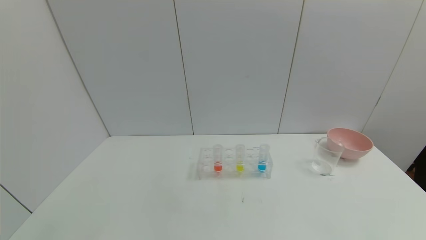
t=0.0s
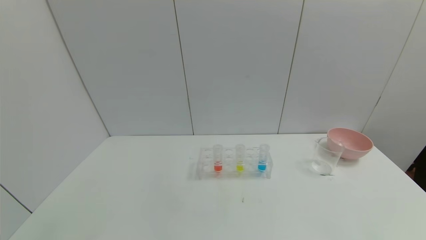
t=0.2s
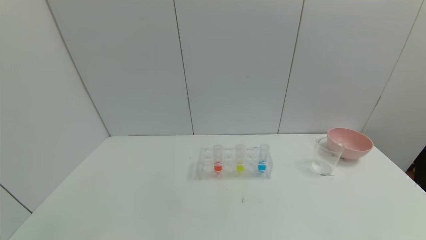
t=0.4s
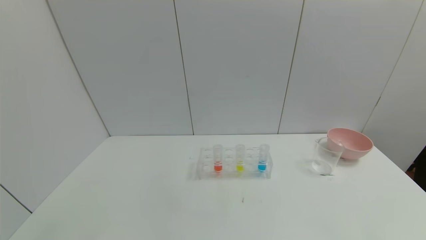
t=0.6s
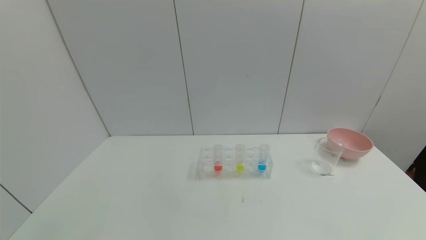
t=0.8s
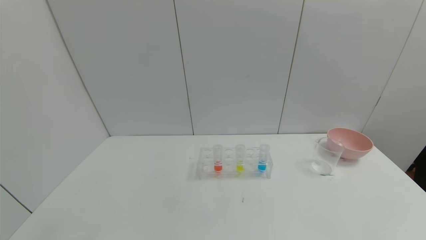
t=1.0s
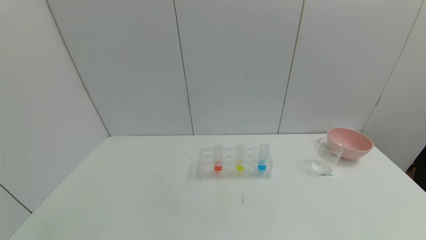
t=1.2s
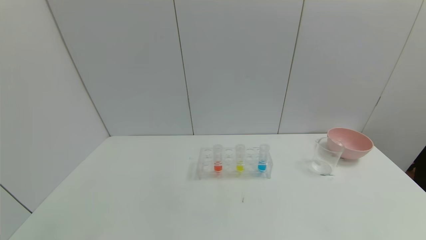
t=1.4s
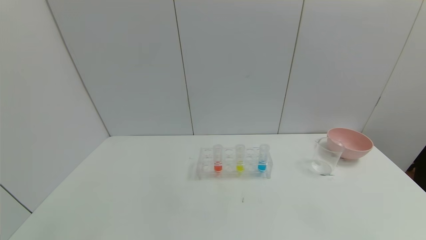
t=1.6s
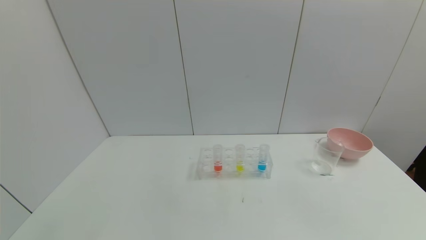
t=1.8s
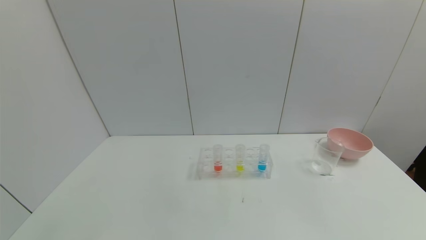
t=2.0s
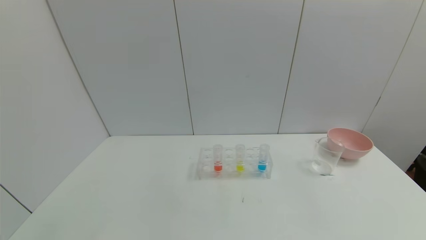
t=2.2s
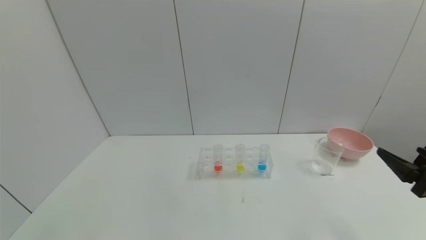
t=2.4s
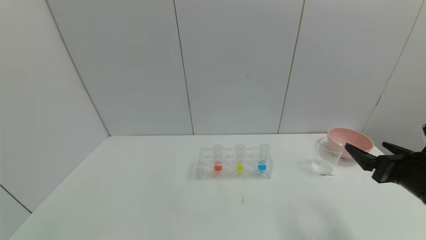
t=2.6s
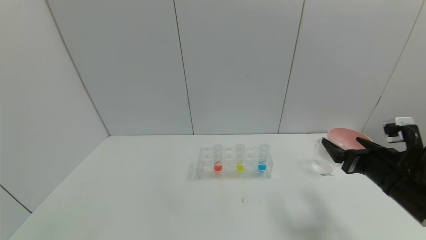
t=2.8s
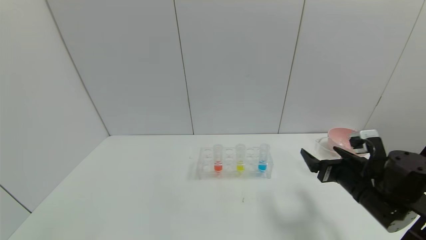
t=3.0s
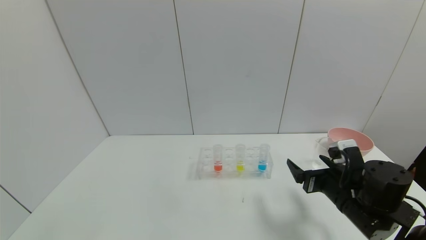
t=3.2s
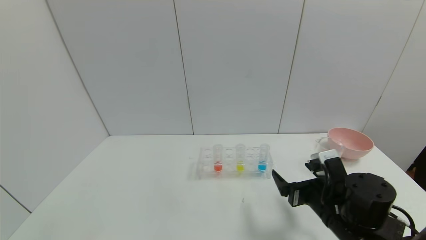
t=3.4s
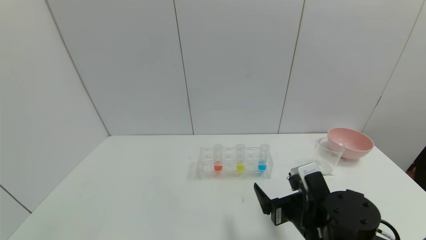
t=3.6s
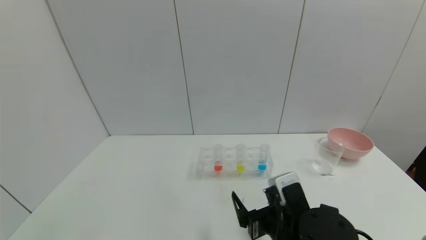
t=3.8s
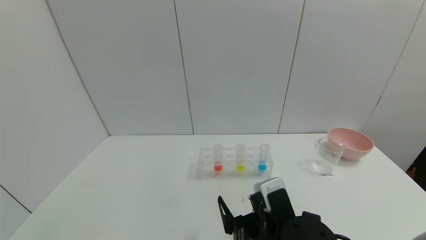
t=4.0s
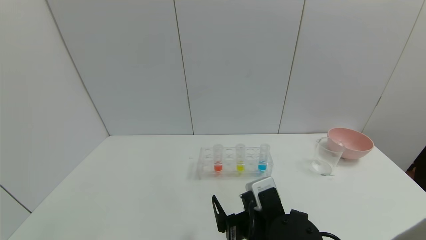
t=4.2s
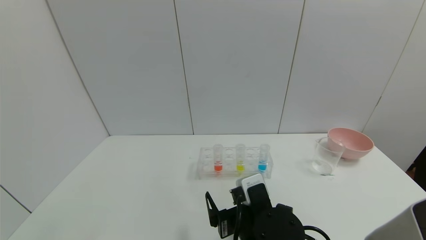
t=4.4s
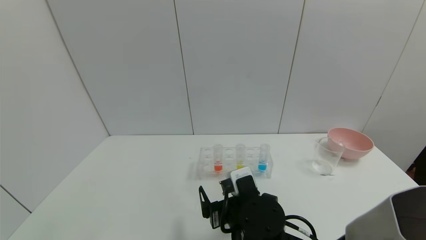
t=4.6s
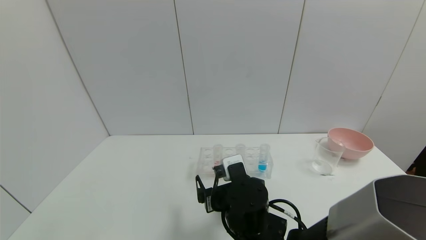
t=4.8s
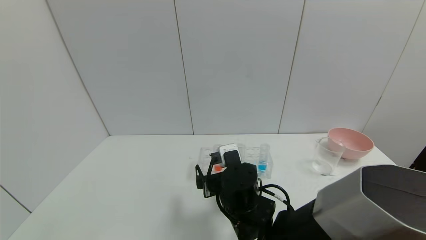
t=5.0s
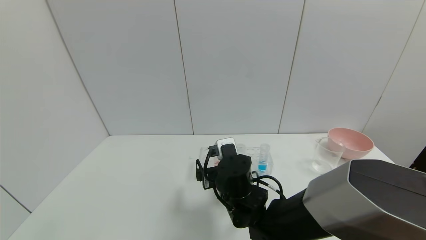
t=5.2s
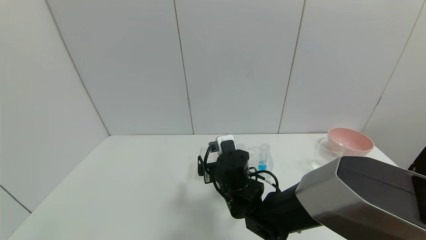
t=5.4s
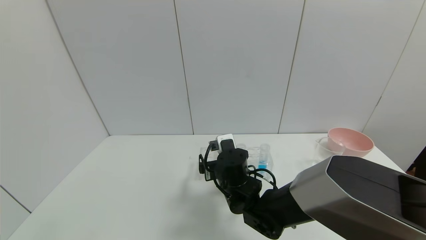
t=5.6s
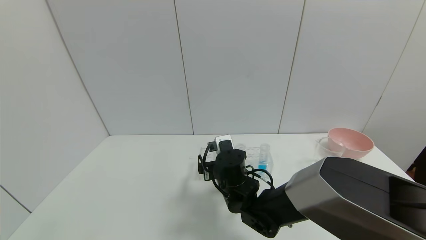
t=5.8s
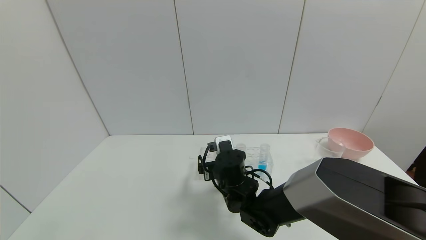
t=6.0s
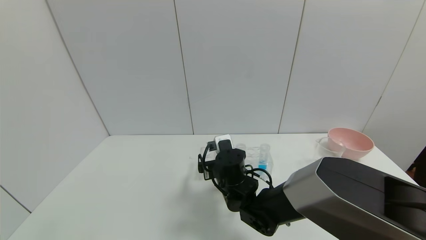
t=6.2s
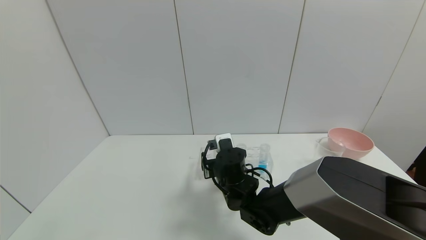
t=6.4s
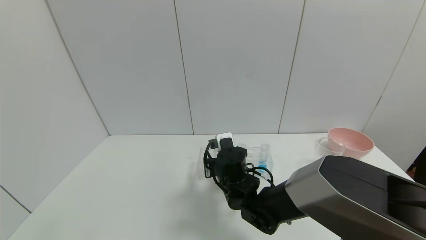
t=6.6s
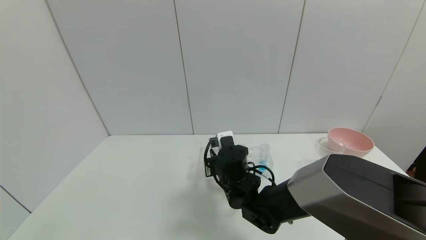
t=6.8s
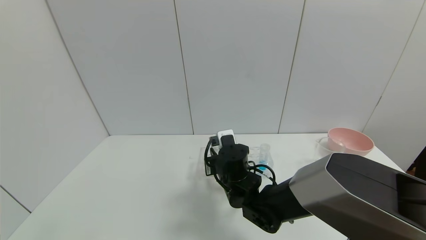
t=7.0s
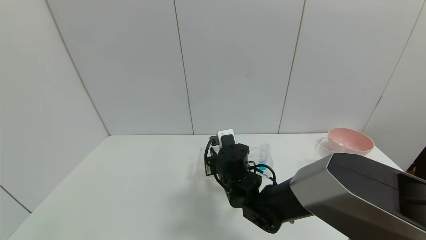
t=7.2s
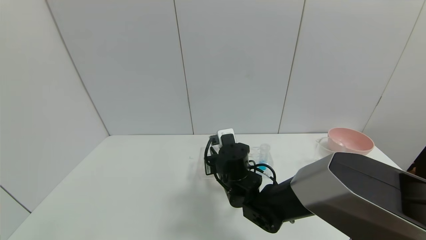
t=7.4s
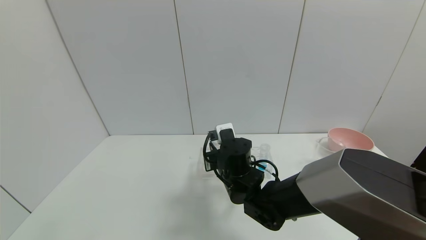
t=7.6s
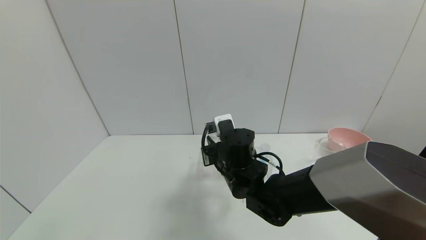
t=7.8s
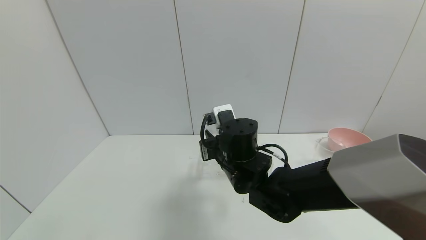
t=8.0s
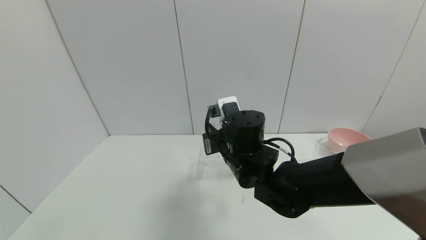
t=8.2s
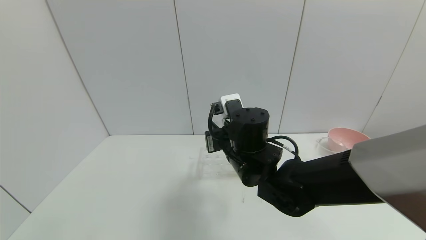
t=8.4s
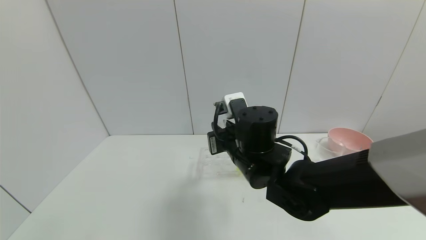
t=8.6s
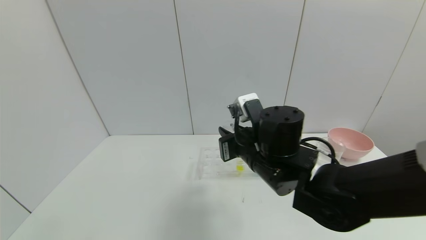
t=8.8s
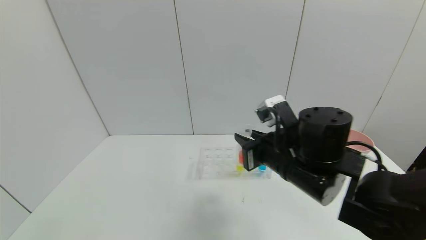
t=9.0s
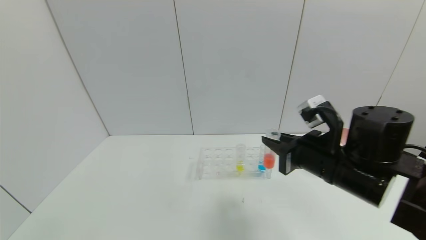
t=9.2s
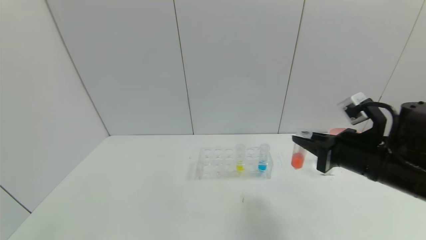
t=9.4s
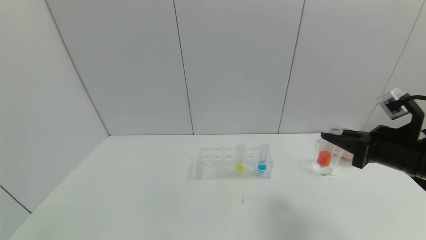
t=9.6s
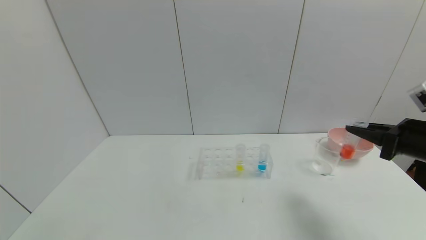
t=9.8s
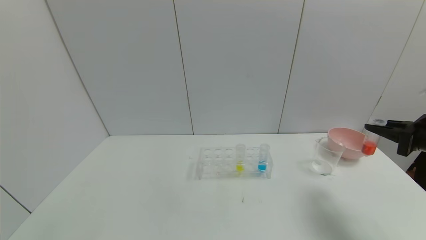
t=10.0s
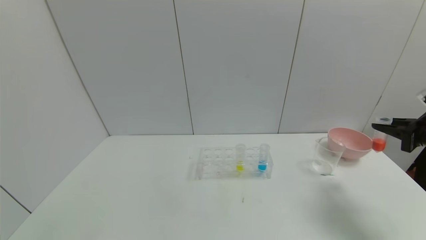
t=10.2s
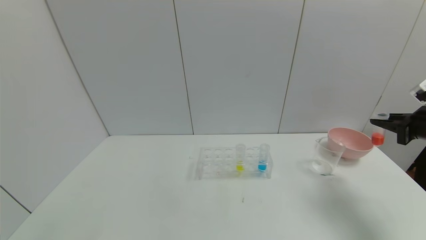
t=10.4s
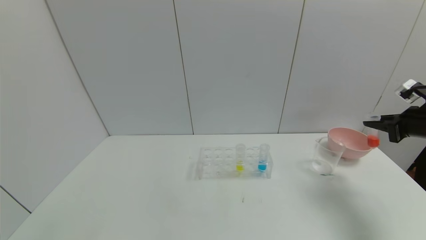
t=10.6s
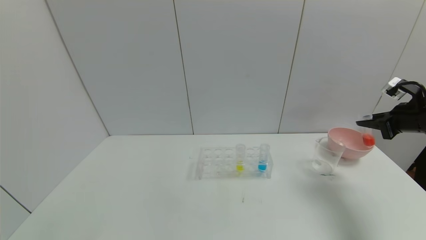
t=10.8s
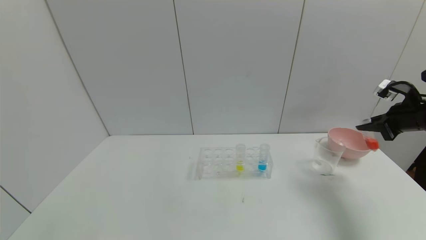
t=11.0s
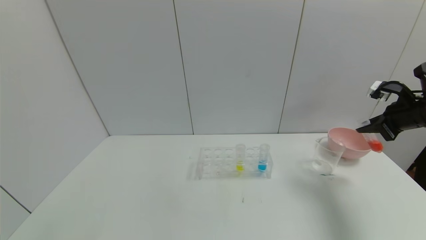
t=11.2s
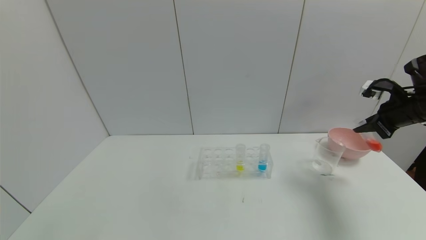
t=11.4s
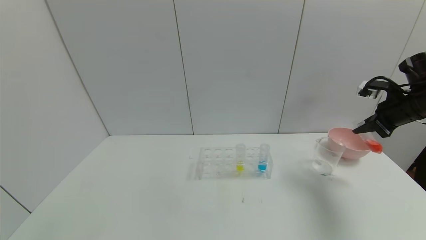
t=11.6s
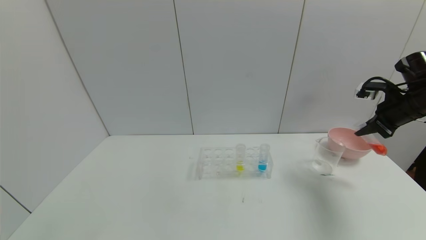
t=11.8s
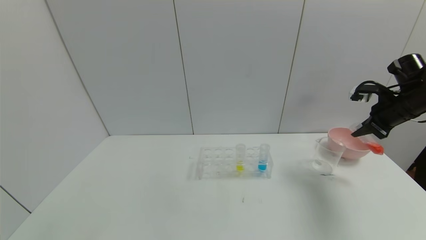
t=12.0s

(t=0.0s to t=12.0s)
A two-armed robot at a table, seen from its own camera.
Task of the whole recording: pick up the test tube with red pigment and the test tube with blue pigment by grippers and pour them into the container.
Step, t=0.0s - t=6.8s: Grasp the red reagent with the right gripper.
t=1.6s - t=3.0s: The right gripper heads forward, covering roughly 25 cm.
t=3.0s - t=4.4s: The right gripper travels to the left by roughly 20 cm.
t=4.4s - t=6.0s: The right gripper is displaced forward by some 15 cm.
t=6.0s - t=7.6s: The right gripper closes up.
t=7.6s - t=9.0s: The right gripper travels to the right, upward and backward by approximately 15 cm.
t=9.0s - t=10.4s: The right gripper goes roughly 35 cm to the right.
t=10.4s - t=12.0s: The right gripper heads forward and to the left, covering some 10 cm.

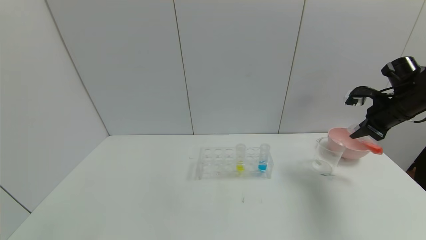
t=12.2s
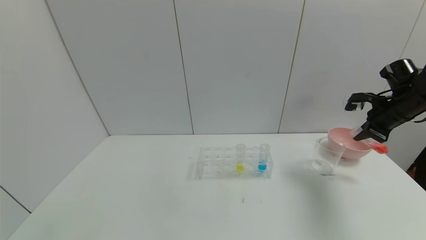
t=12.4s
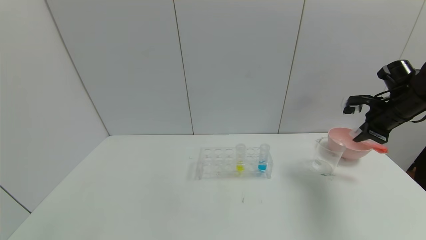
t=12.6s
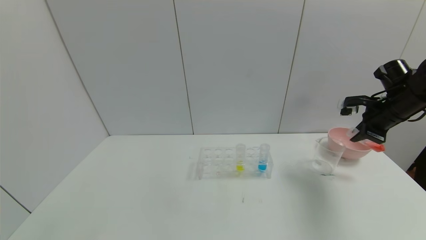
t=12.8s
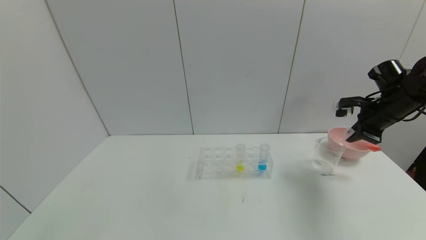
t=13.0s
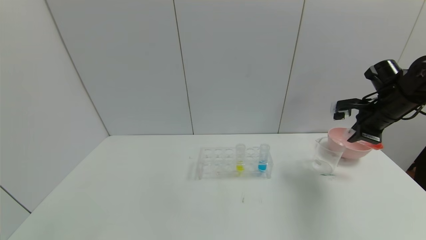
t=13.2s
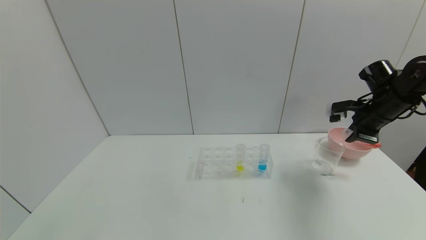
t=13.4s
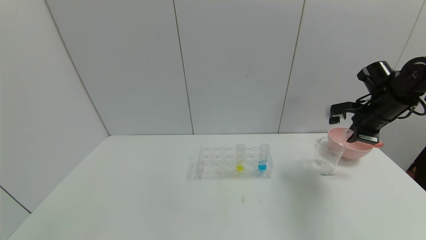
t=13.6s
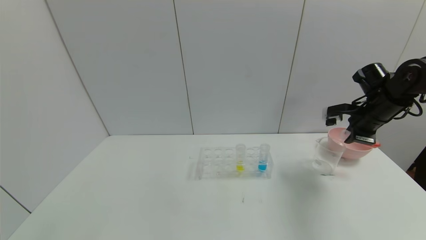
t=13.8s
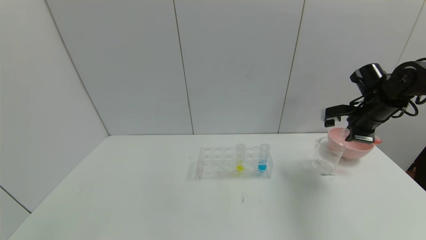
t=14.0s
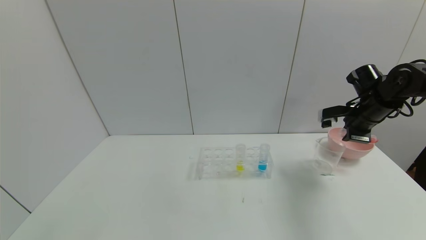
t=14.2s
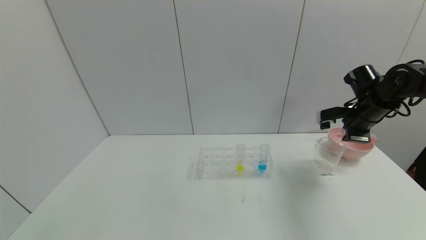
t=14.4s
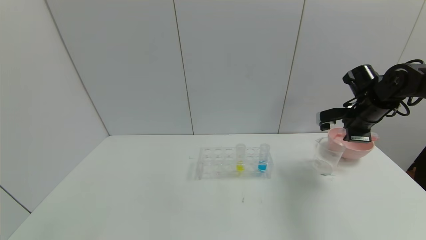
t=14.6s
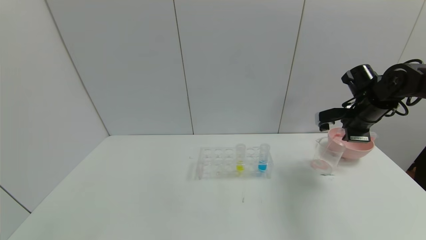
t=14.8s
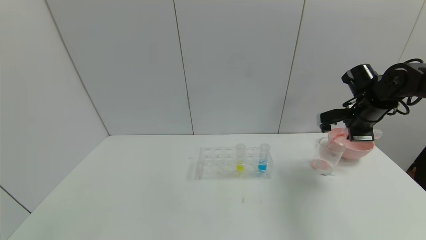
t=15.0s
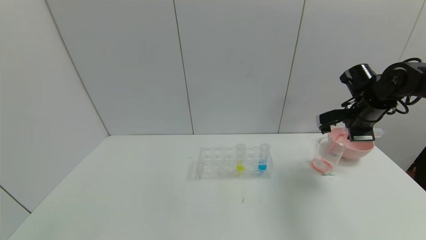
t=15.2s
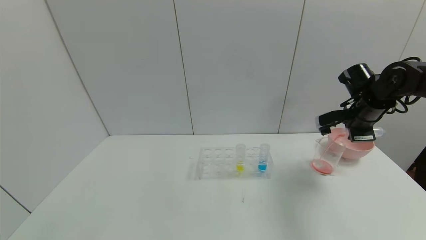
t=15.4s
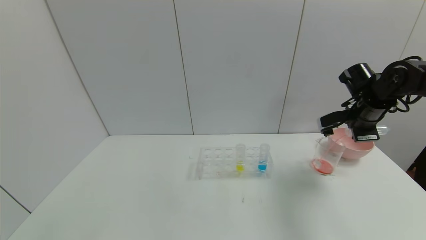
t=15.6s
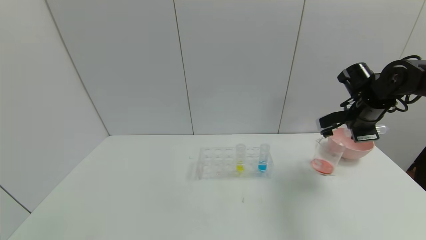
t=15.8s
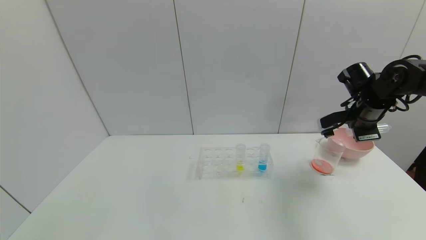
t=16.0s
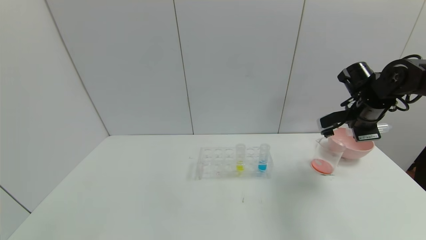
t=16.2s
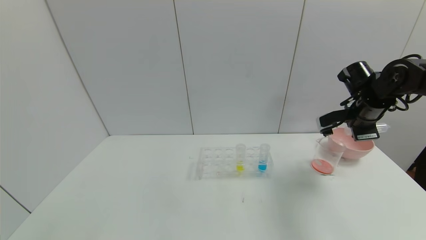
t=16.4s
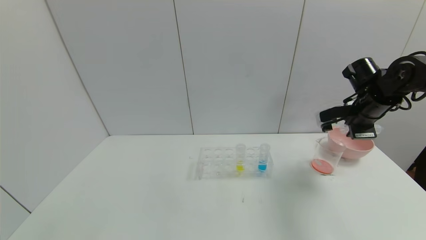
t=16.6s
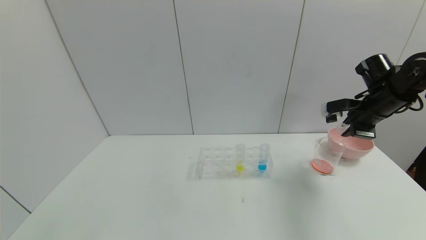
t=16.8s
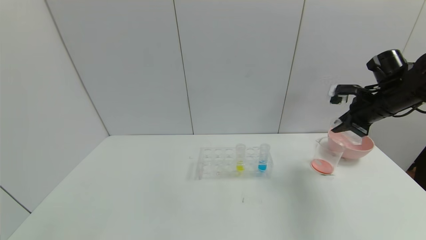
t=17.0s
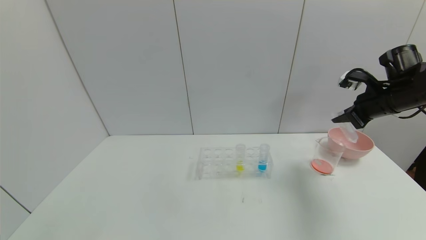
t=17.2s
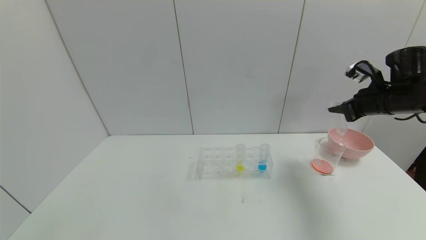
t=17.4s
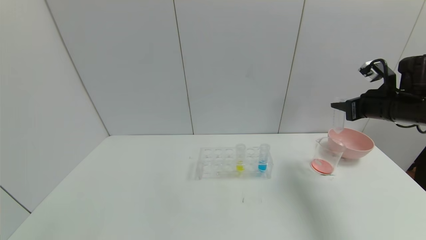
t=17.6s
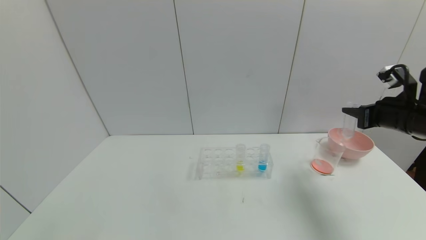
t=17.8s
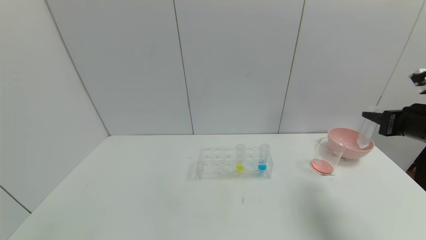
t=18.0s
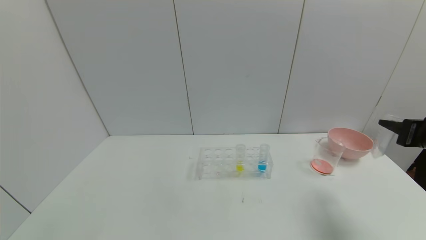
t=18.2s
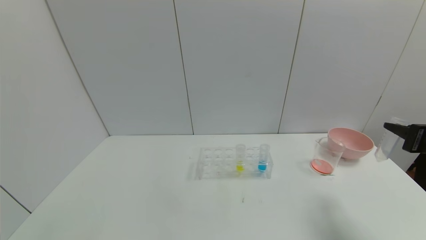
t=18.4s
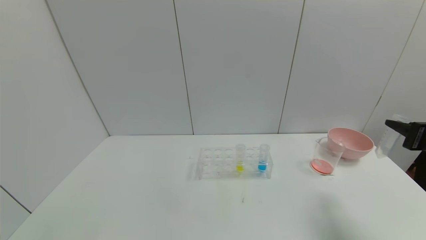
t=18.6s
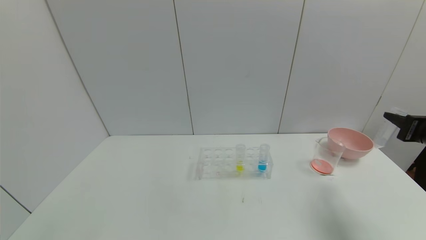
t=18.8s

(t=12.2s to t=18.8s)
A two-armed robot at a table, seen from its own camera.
Task of the whole recording: pick up the test tube with red pigment and the test tube with blue pigment by grippers and pour them into the container.
Step, t=12.2s - t=16.0s: Pour the red reagent into the graduated cylinder with the right gripper.
t=13.8s - t=15.4s: The grippers move only a little.
t=15.4s - t=17.2s: The right gripper moves roughly 5 cm.
t=17.2s - t=18.8s: The right gripper goes roughly 15 cm backward.
